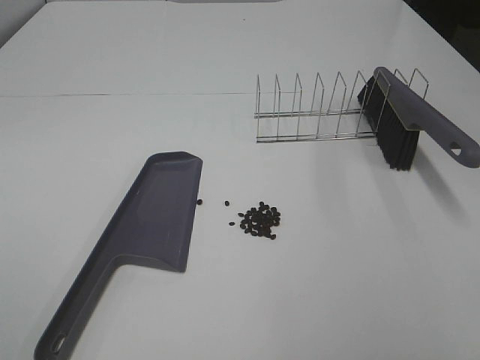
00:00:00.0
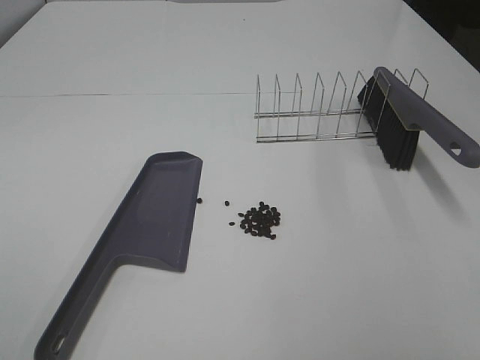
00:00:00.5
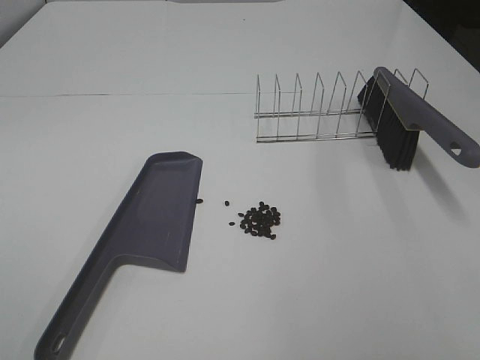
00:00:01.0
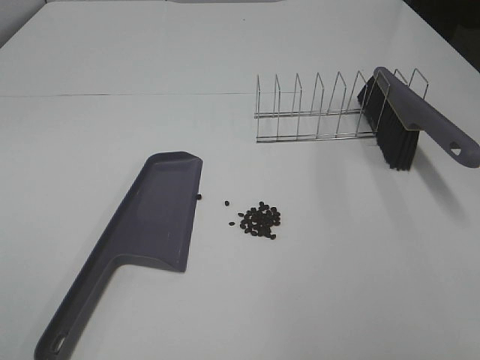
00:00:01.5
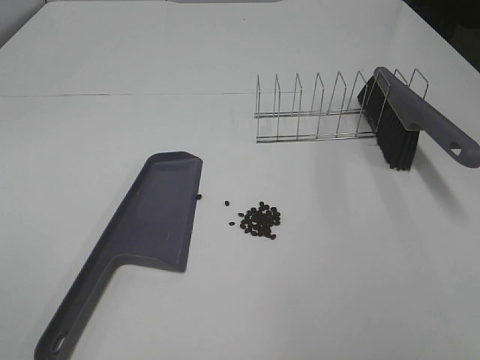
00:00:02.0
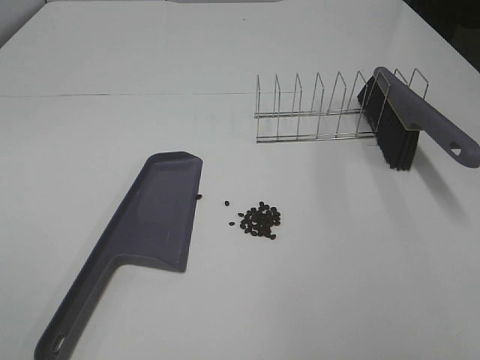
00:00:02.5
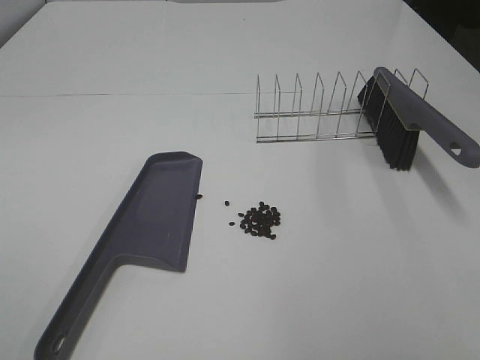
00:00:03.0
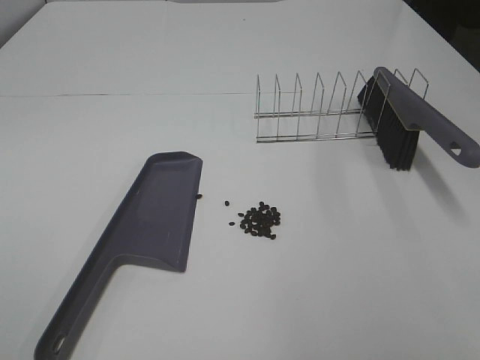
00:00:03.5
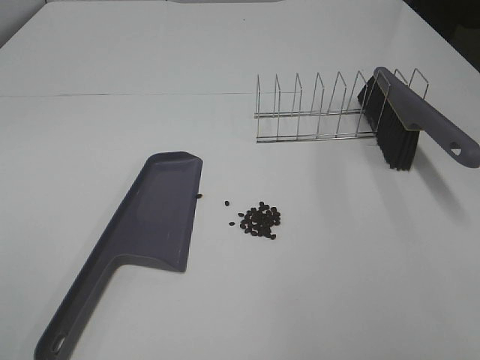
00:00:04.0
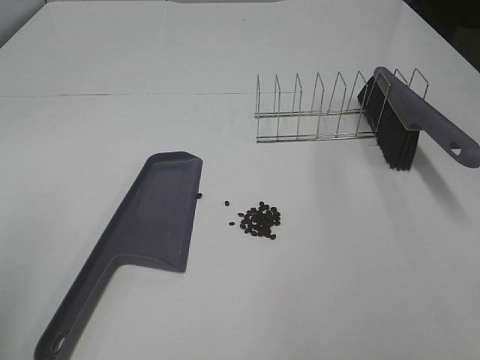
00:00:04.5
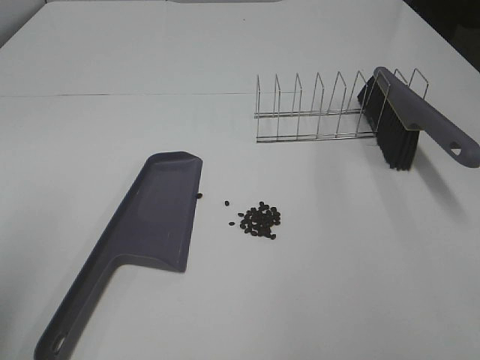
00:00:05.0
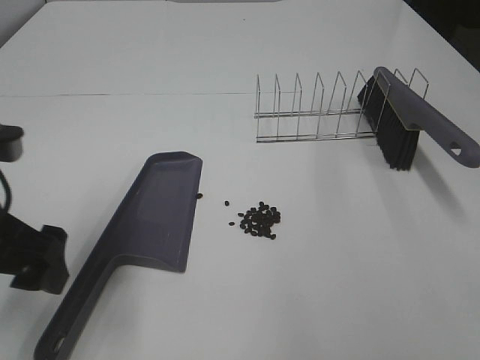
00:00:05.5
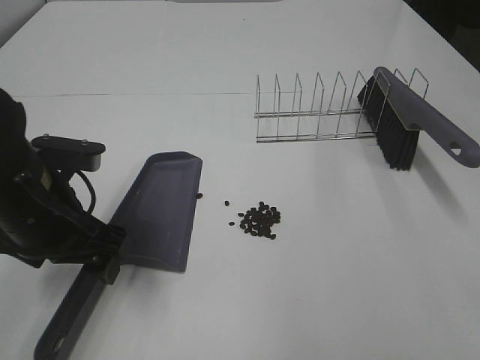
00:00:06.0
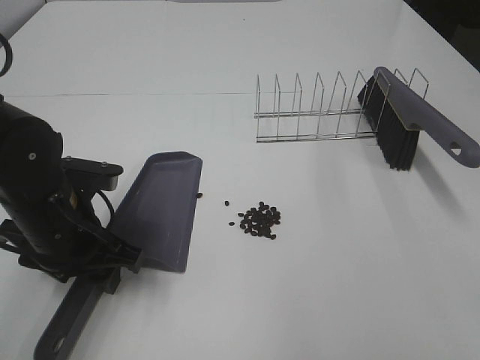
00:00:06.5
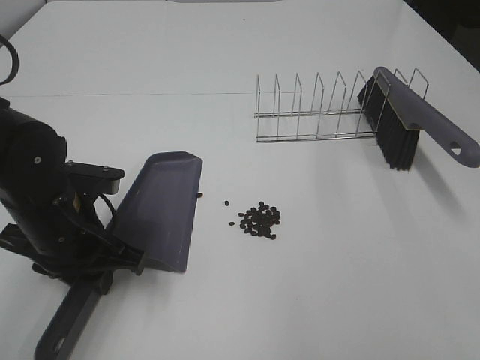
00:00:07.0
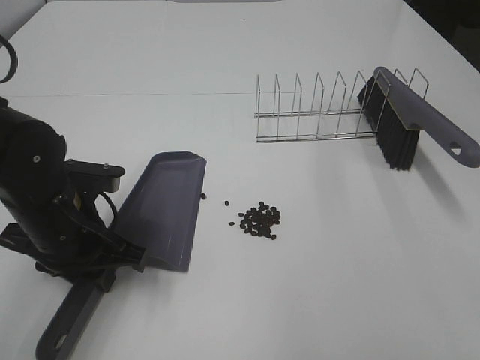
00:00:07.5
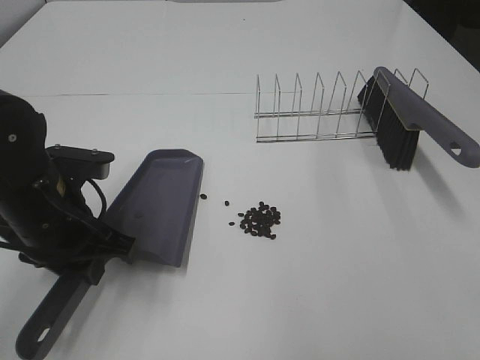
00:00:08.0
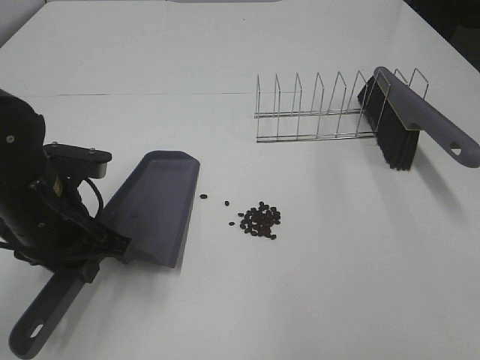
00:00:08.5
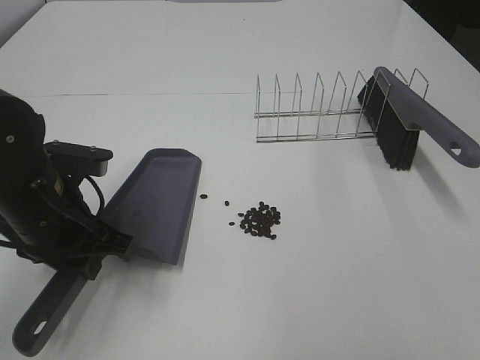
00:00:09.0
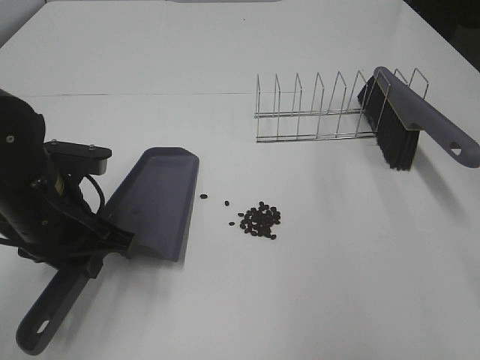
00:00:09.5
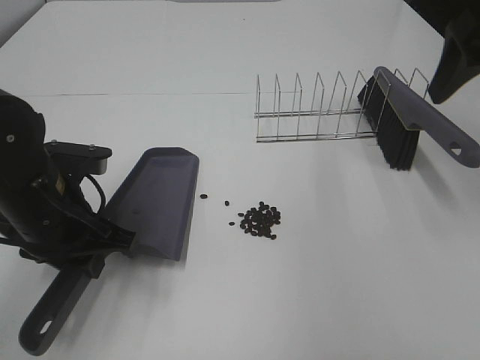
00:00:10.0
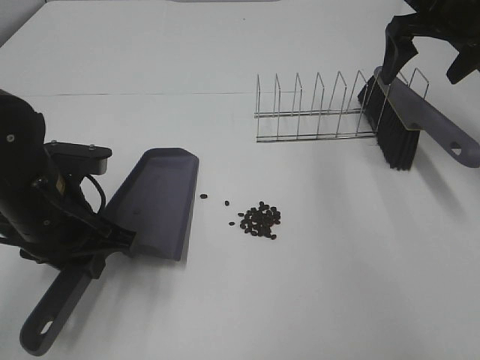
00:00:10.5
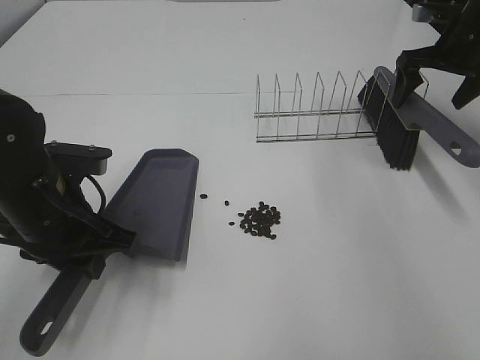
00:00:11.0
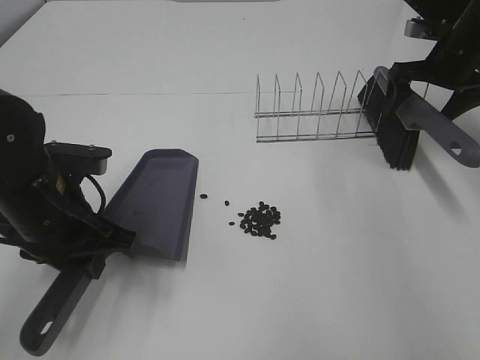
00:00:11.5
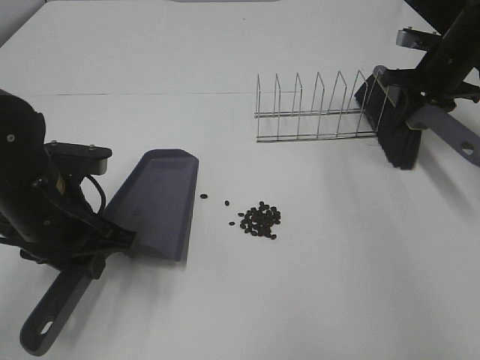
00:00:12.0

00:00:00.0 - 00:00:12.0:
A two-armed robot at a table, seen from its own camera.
Task of the whole recording: Sweep Coffee Bean.
Step, 00:00:00.0 - 00:00:07.0: Left hand: grab the dustpan.
00:00:04.0 - 00:00:06.0: The left gripper is displaced forward, downward and to the right by about 30 cm.
00:00:06.0 - 00:00:08.0: The left gripper closes its fingers.
00:00:08.0 - 00:00:10.0: The right gripper travels forward by some 30 cm.
00:00:10.0 - 00:00:12.0: The right gripper is displaced forward and downward by approximately 25 cm, and closes its fingers.

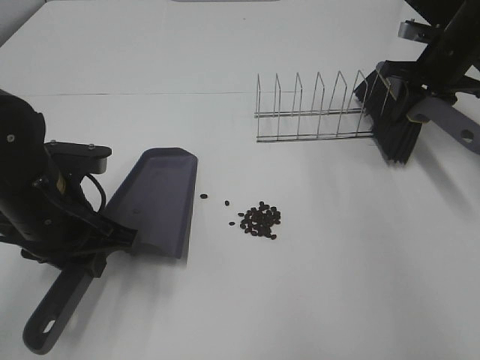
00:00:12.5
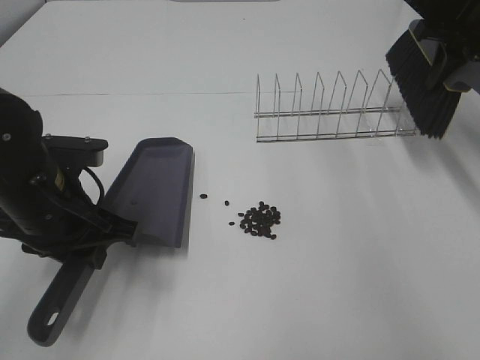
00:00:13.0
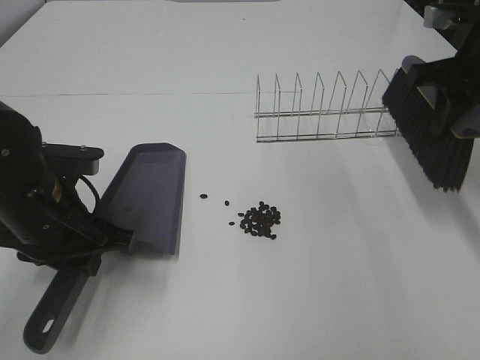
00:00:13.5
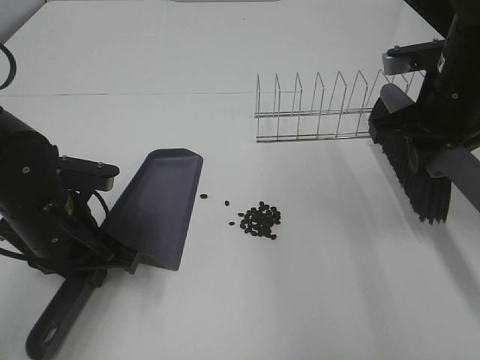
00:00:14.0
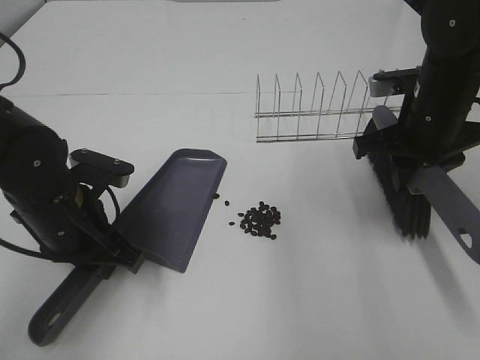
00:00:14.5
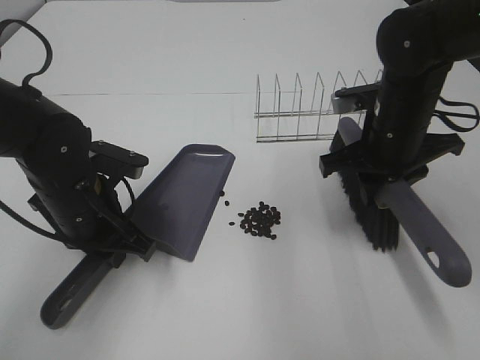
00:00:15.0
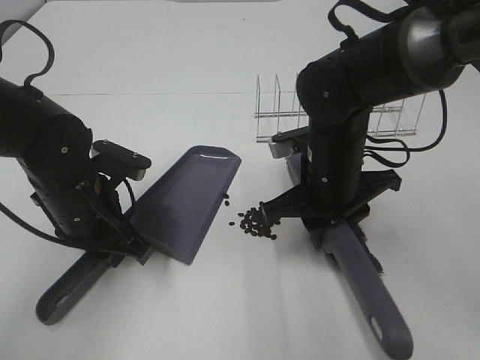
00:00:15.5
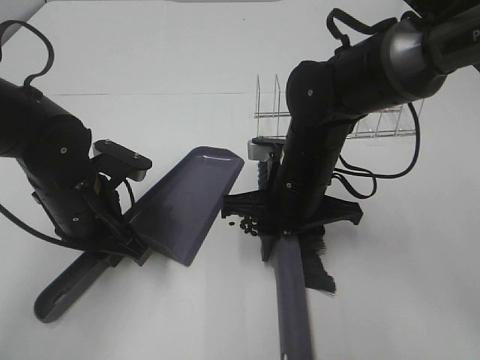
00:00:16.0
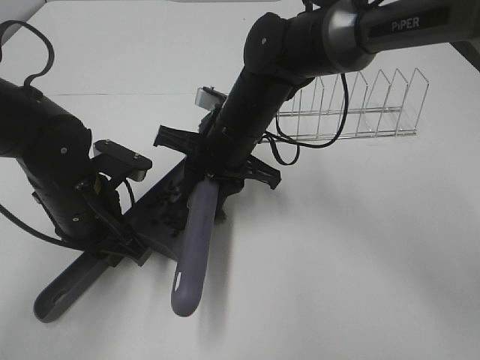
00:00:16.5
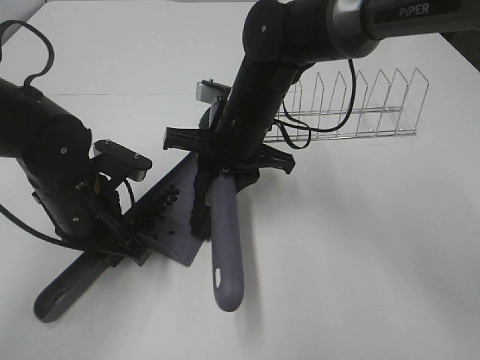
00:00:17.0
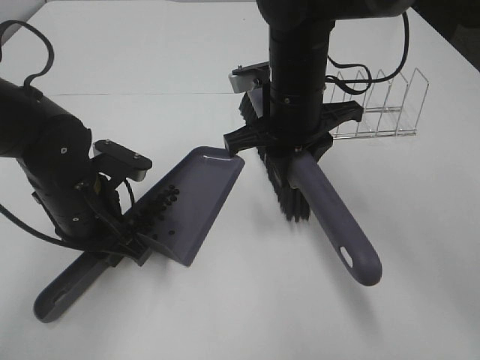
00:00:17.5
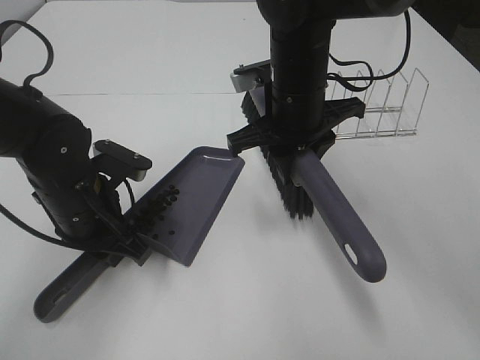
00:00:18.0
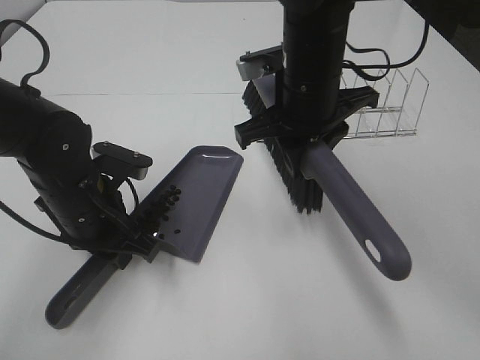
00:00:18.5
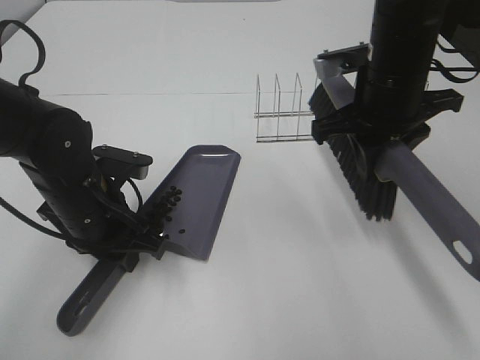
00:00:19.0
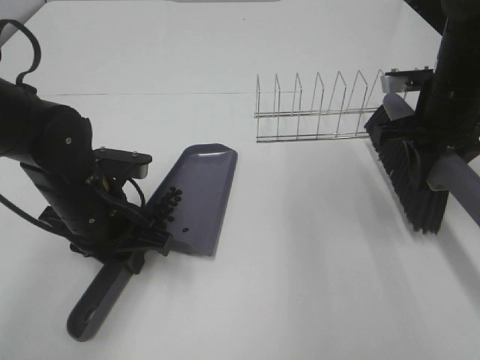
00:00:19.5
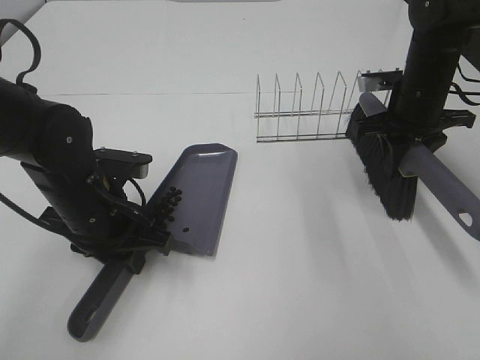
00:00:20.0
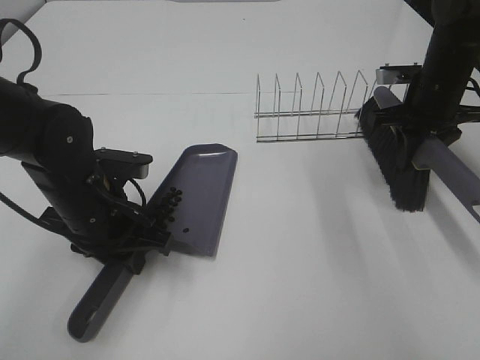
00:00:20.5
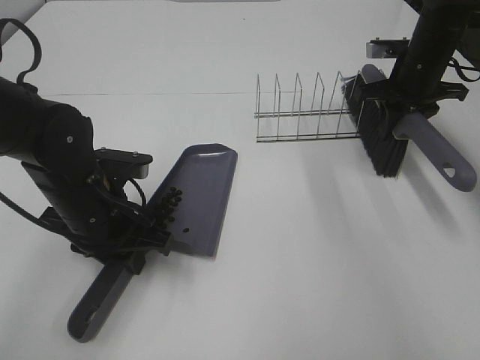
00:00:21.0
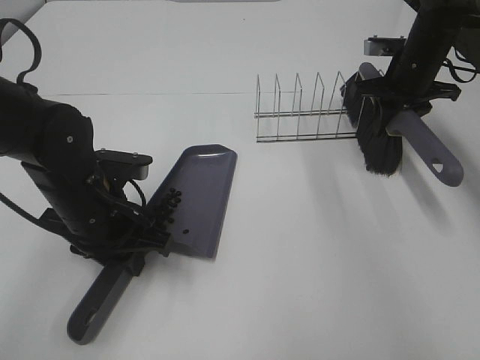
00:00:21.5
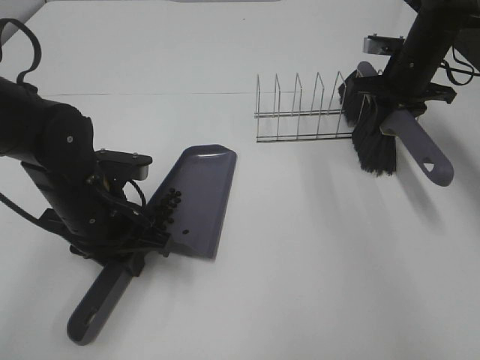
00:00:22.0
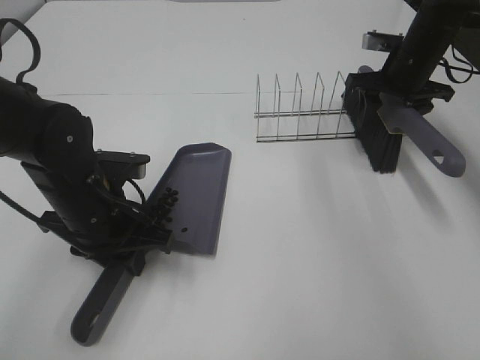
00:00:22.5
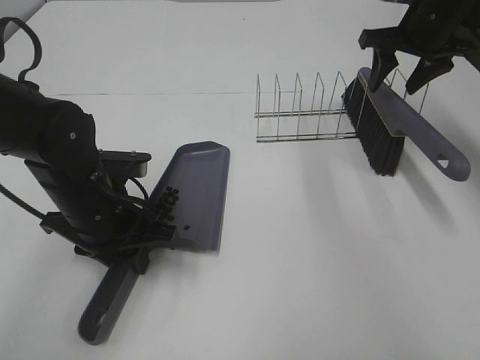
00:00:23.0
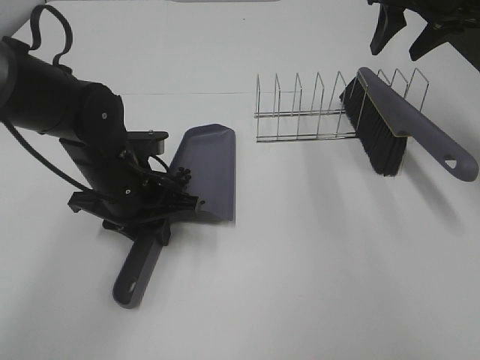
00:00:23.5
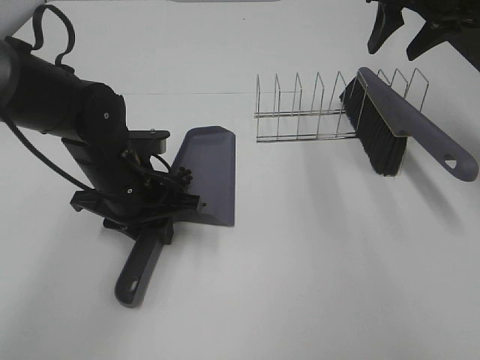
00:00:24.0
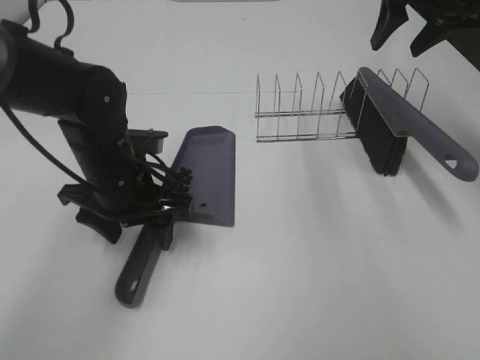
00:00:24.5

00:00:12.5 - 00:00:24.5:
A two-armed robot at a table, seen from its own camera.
Task of the whole recording: Sweep Coffee Bean.
Step, 00:00:12.5 - 00:00:15.0: Left hand: move the dustpan to the left side of the coffee beans.
Step, 00:00:13.0 - 00:00:16.5: Right hand:sweep the coffee beans into the dustpan.
Step, 00:00:17.0 - 00:00:22.5: Right hand:place the broom on the rack.
00:00:12.5 - 00:00:14.5: The right gripper travels backward and to the left by about 20 cm.
00:00:14.5 - 00:00:16.5: The right gripper goes some 20 cm to the left.
00:00:16.5 - 00:00:18.5: The right gripper travels upward and to the right by about 10 cm.
00:00:18.5 - 00:00:20.5: The right gripper moves to the right and forward, some 20 cm.
00:00:20.5 - 00:00:22.5: The right gripper is displaced forward by about 5 cm, and opens its fingers.
00:00:22.5 - 00:00:24.5: The left gripper opens. Meanwhile the right gripper goes some 15 cm upward.

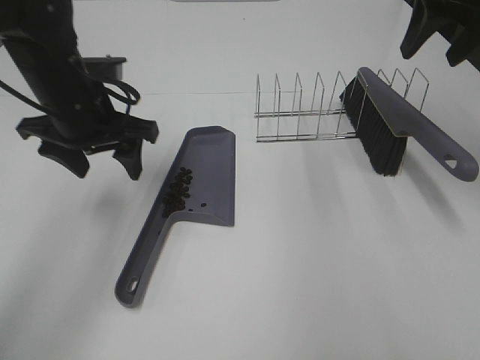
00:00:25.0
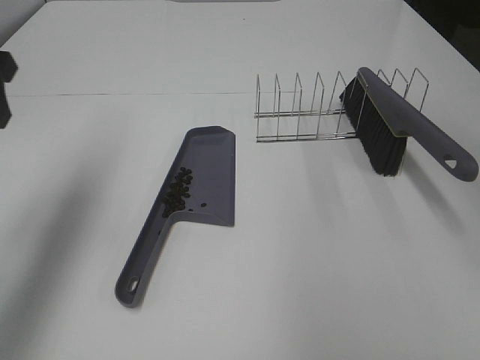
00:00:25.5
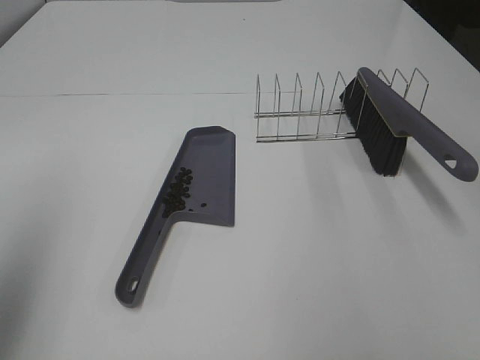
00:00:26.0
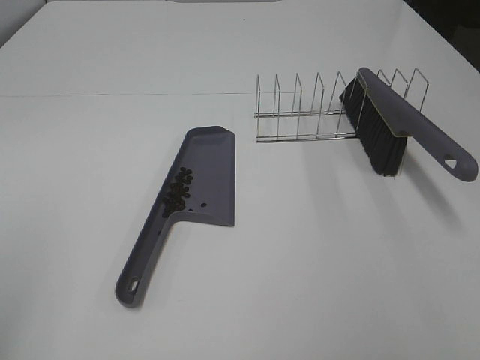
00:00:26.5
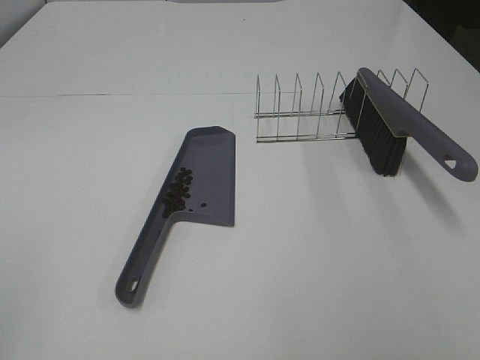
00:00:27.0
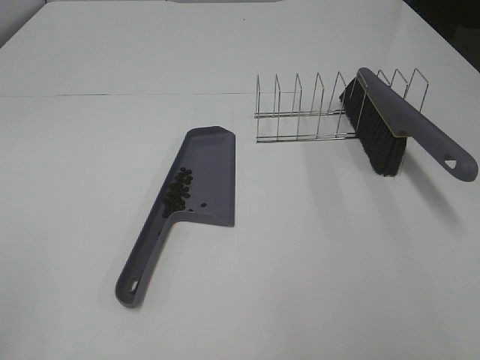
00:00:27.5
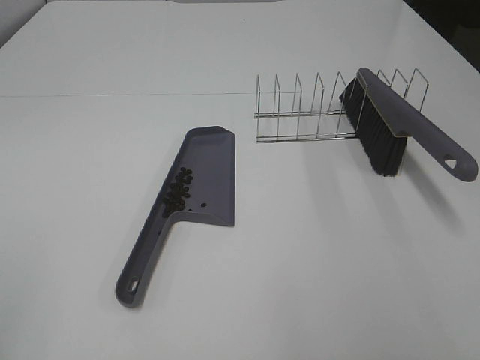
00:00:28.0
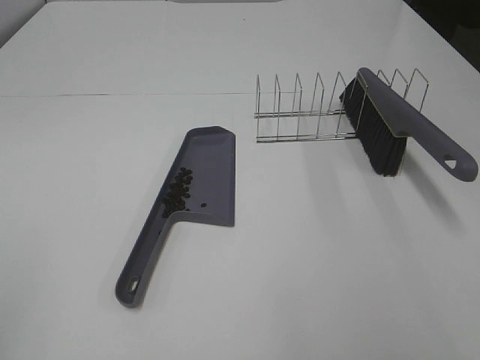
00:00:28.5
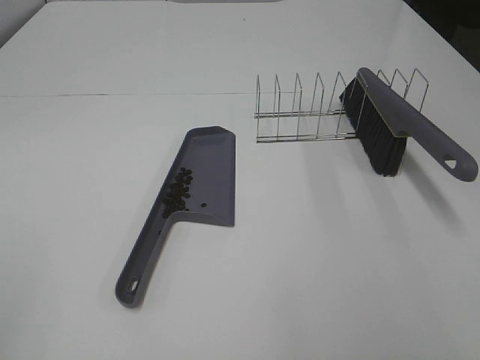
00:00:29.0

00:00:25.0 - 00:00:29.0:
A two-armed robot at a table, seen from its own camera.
Task of the whole recording: Sweep Coffee Bean.
00:00:25.0 - 00:00:27.0: The left gripper travels backward and to the left by some 40 cm; the right gripper moves backward, about 40 cm.
